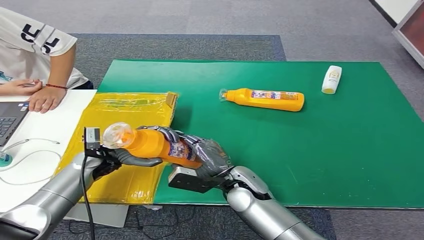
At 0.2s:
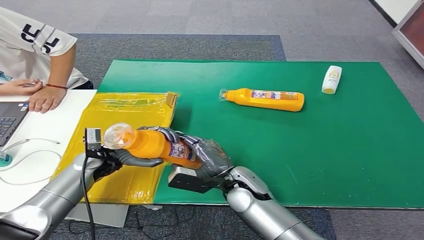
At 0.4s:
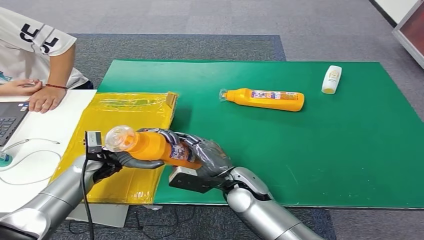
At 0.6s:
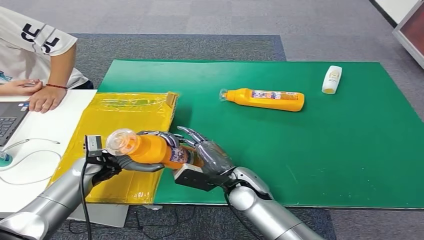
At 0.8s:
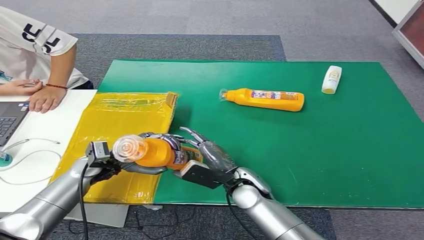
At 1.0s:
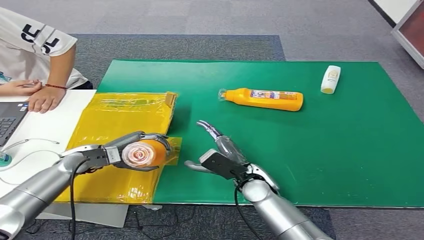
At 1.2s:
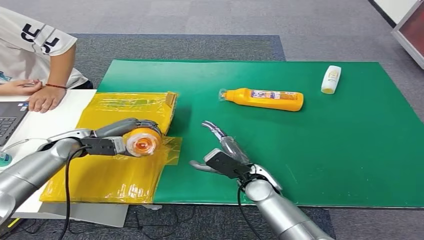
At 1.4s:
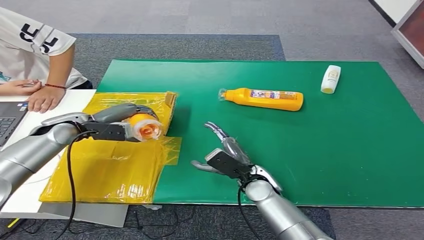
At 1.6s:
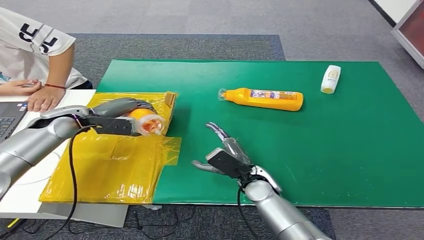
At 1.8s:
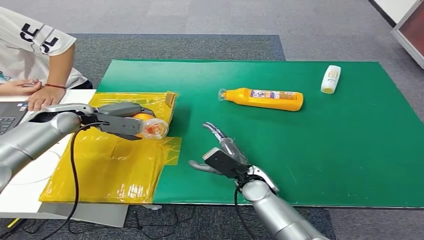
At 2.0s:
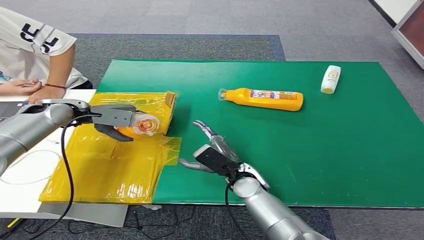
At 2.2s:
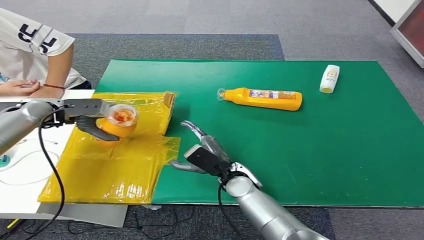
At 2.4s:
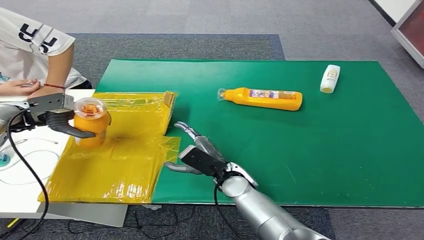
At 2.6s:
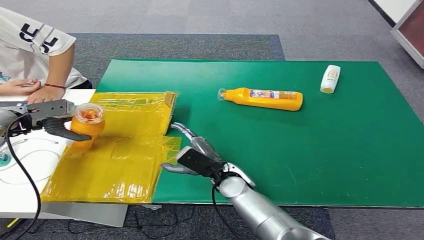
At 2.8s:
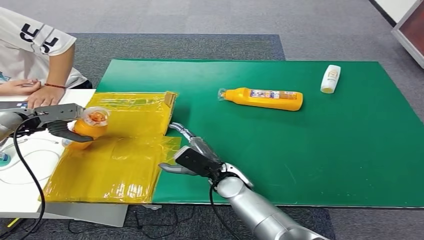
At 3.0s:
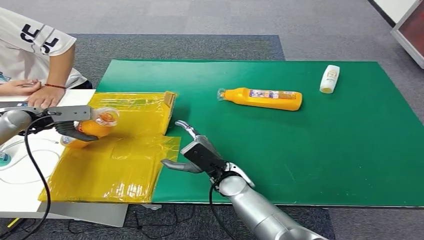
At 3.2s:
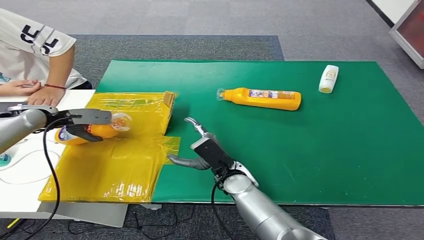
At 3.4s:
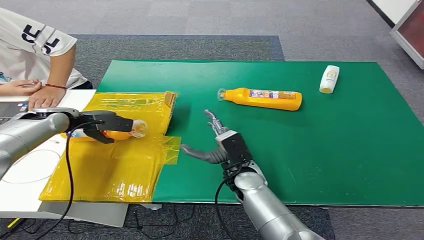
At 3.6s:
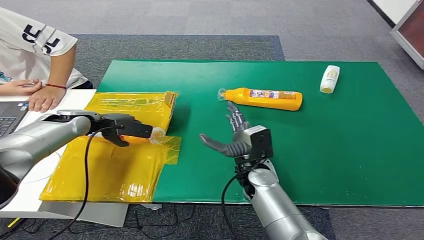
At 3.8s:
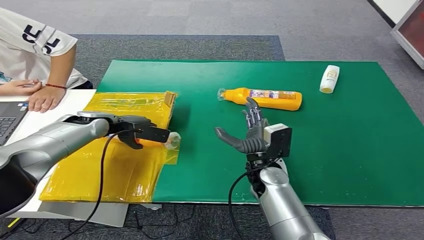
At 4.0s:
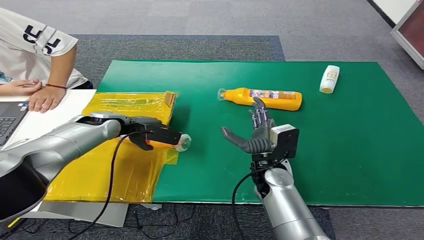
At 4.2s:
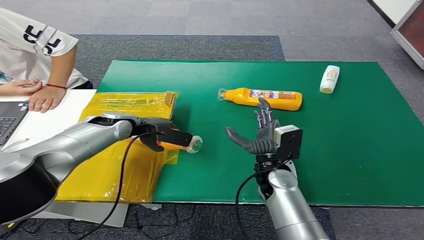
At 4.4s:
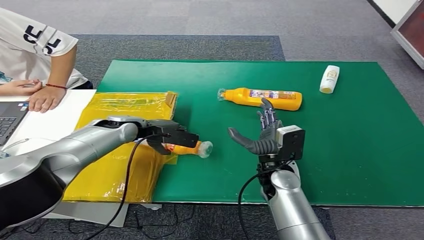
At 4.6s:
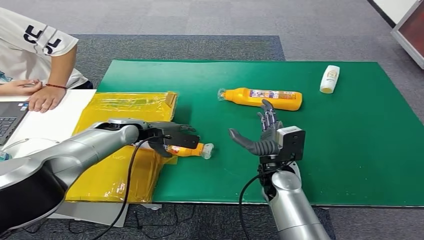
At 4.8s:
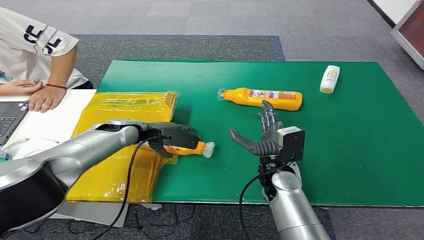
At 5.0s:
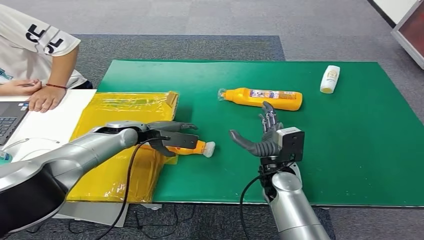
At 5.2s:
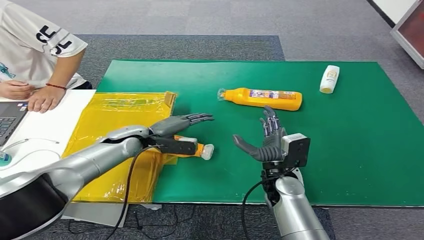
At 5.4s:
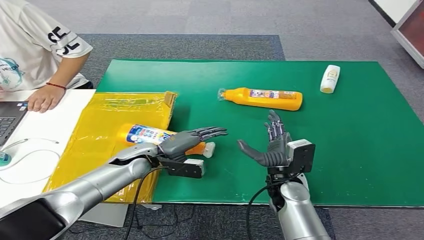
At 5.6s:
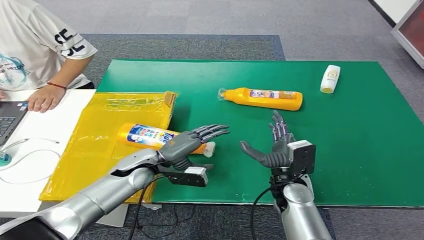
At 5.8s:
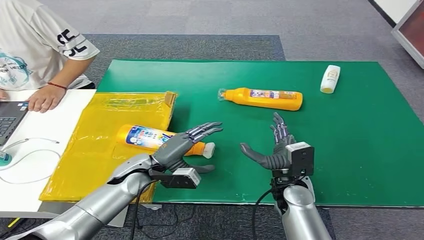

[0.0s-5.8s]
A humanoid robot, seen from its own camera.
Step, 0.0s to 5.8s: Turn the bottle to the front side.
0.0s to 1.4s: The left hand shifts roughly 15 cm upward, to the left and forward.
1.4s to 2.8s: The left hand is displaced to the left by about 15 cm; the right hand travels to the left by about 5 cm.
